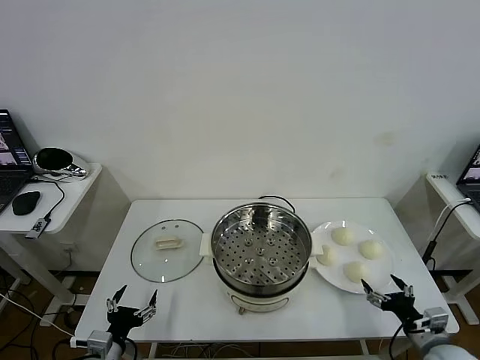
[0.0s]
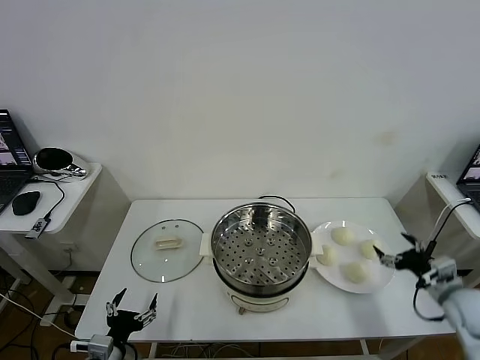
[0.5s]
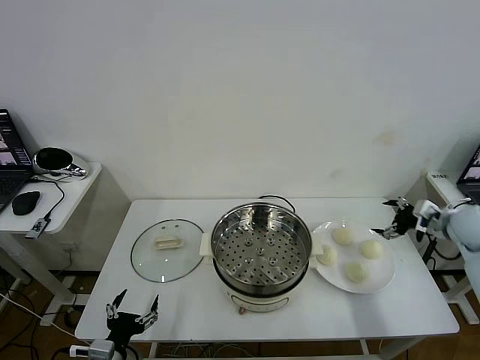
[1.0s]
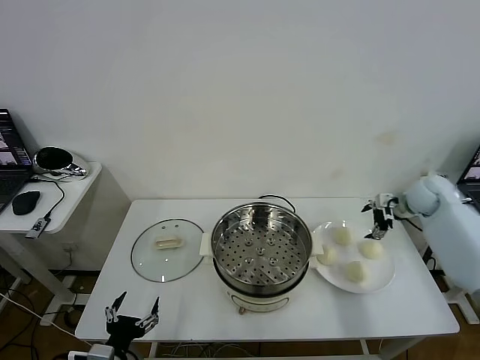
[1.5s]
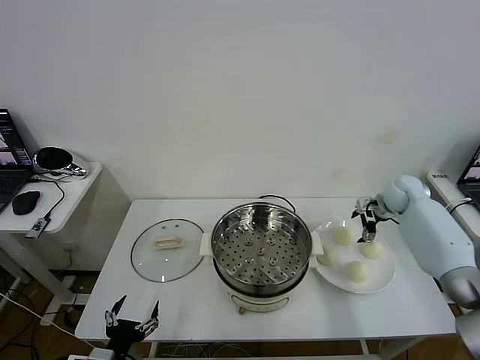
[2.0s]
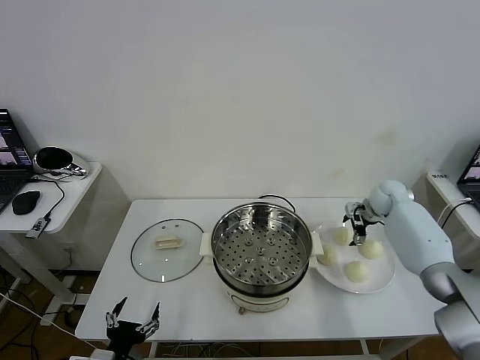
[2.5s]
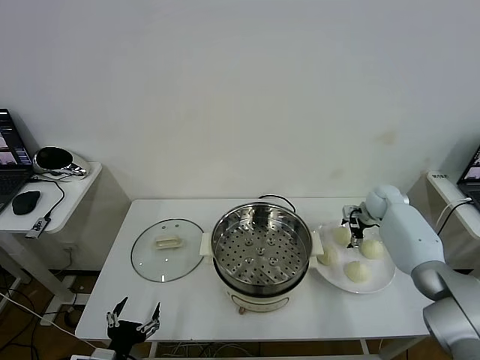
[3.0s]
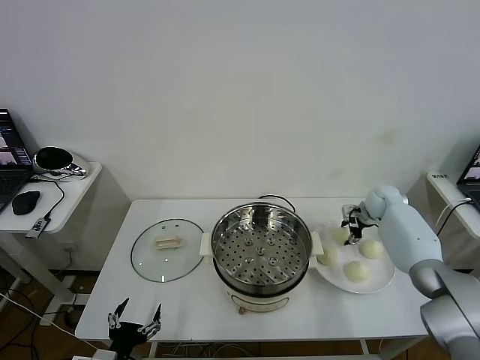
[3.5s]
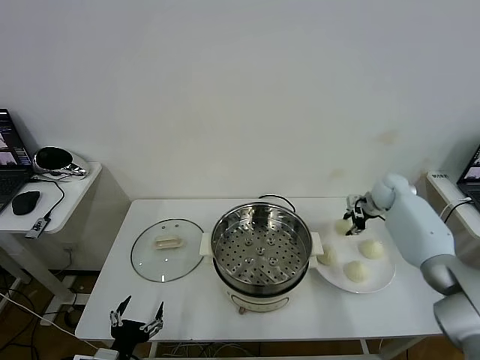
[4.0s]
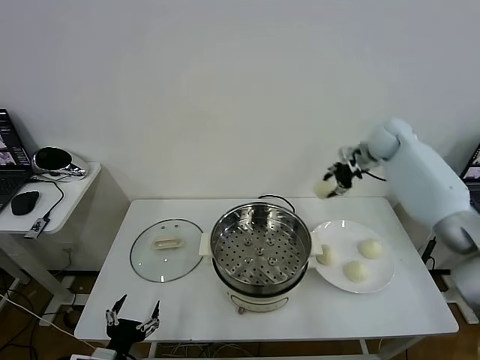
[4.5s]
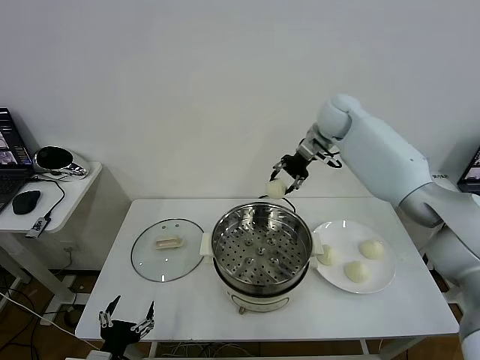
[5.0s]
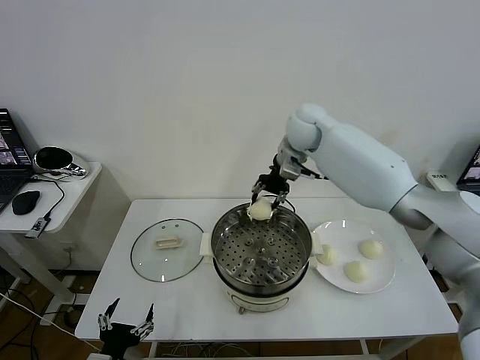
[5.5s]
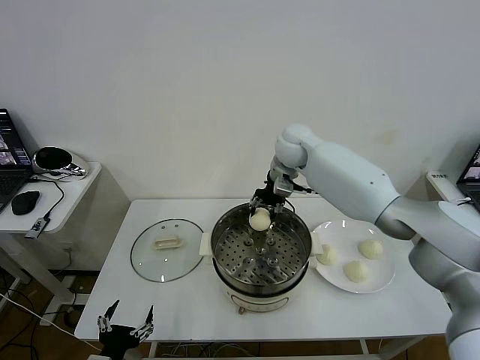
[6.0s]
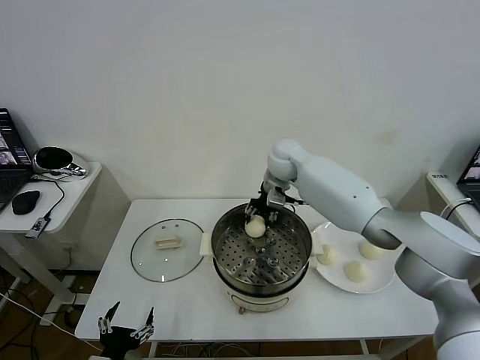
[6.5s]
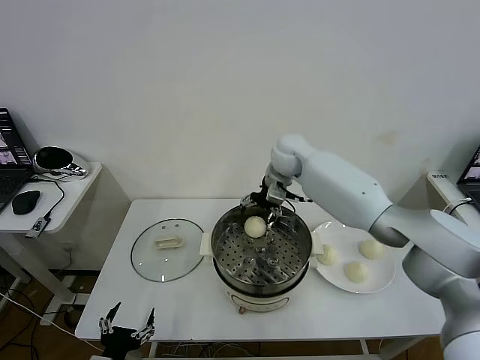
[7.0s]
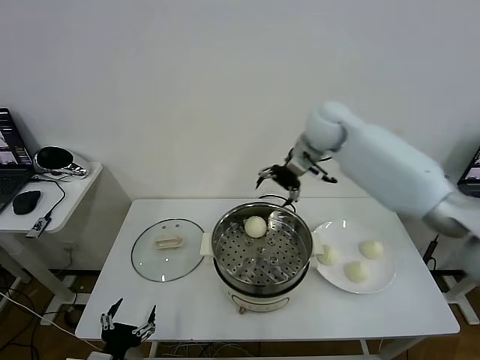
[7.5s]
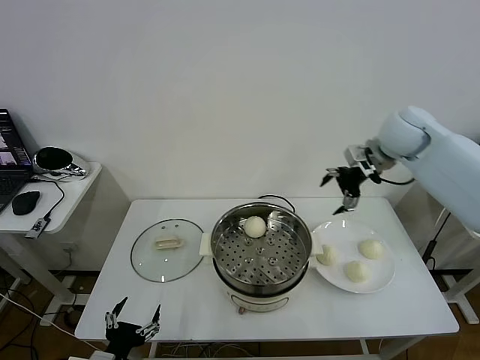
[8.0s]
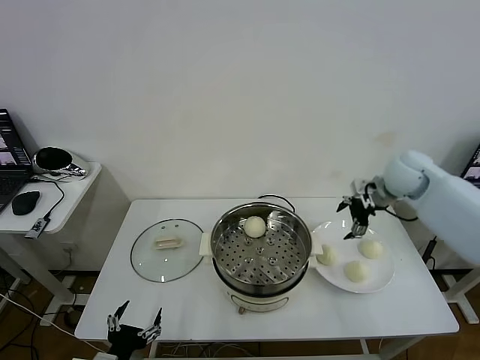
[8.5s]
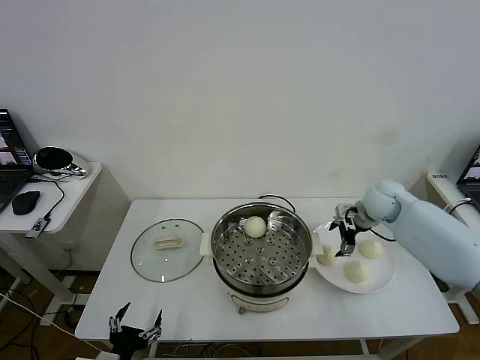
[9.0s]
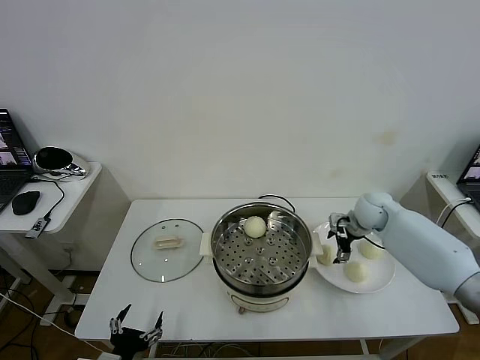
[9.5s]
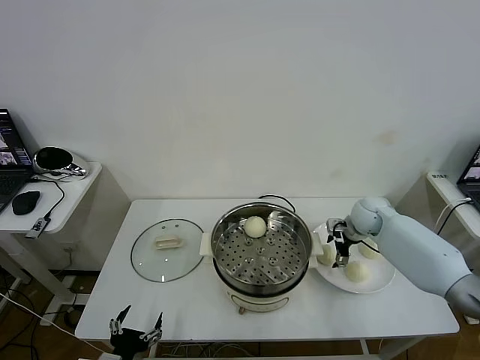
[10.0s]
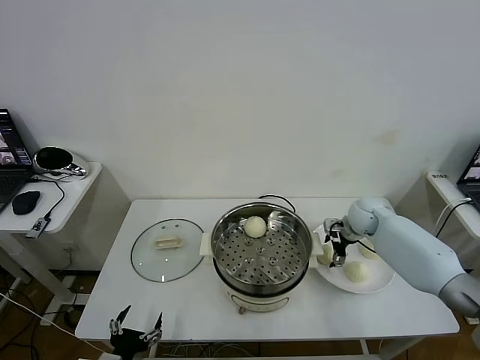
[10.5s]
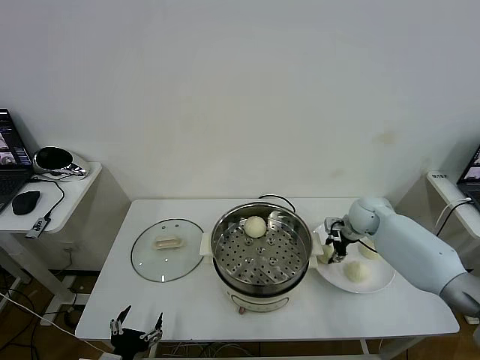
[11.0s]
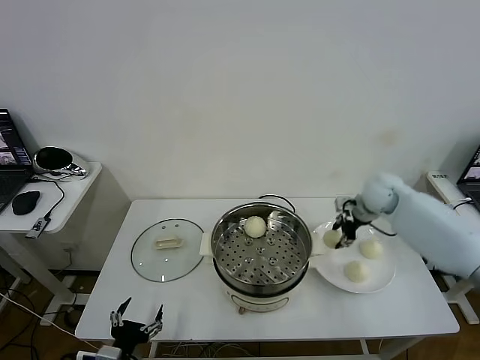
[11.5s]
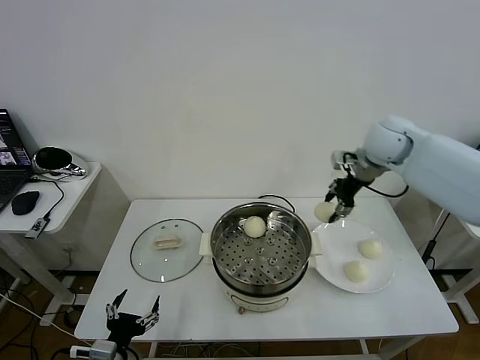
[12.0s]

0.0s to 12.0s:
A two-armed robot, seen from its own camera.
Task of the whole recording: take steamed baozi put them in steamer then cover it.
Step, 0.0s to 3.0s: Grasp the baozi in the plate with right gripper.
Step, 4.0s to 7.0s: Place the baozi on the steamer with right gripper.
Step, 7.5s to 10.5s: Grasp the baozi in the plate with right gripper.
2.0s to 4.0s: The right gripper closes its fingers.
4.0s to 6.0s: The right gripper heads to the left, covering about 30 cm.
6.0s to 8.0s: The right gripper travels to the right by about 25 cm, and opens.
8.0s to 10.0s: The right gripper is displaced downward by roughly 25 cm.
10.0s to 12.0s: The right gripper is displaced upward by about 25 cm, and closes up.

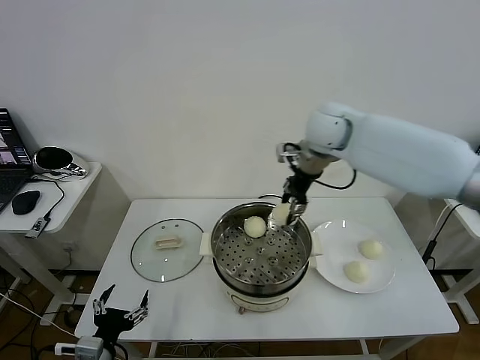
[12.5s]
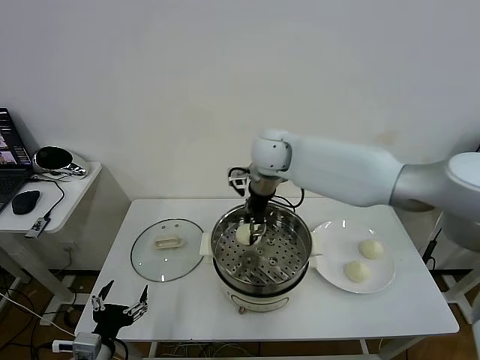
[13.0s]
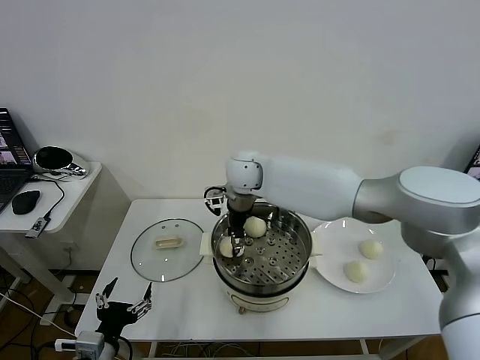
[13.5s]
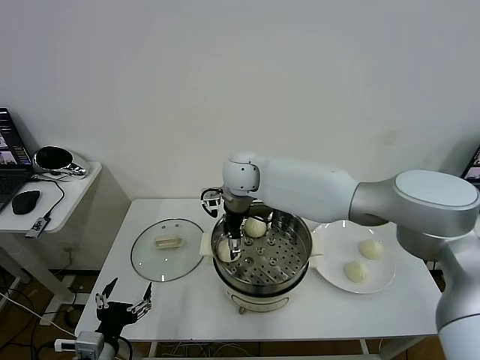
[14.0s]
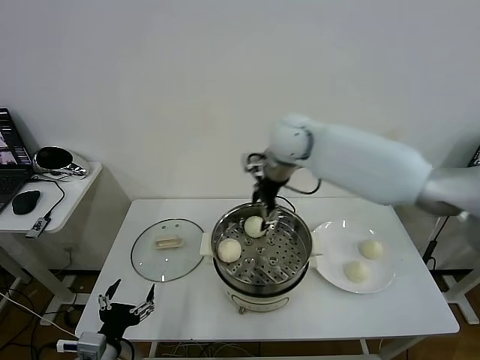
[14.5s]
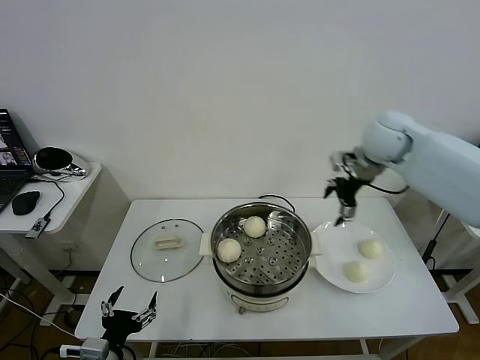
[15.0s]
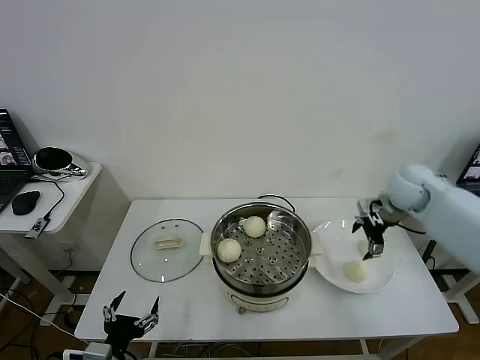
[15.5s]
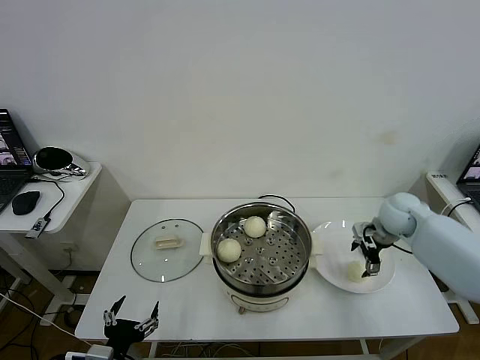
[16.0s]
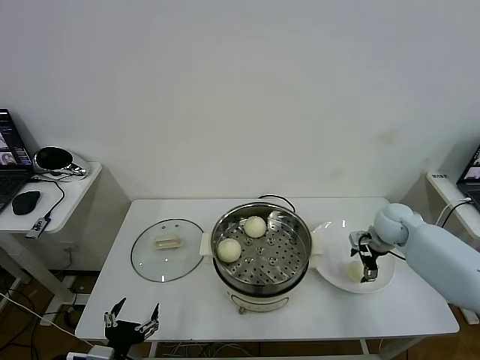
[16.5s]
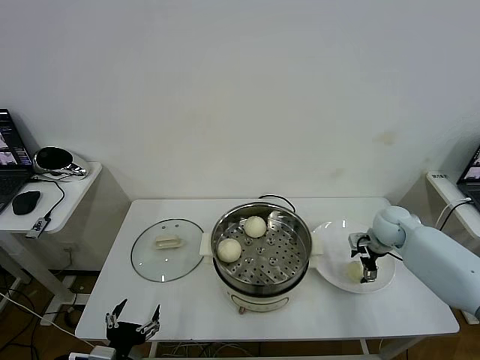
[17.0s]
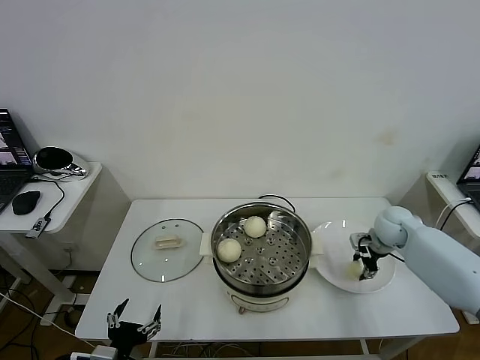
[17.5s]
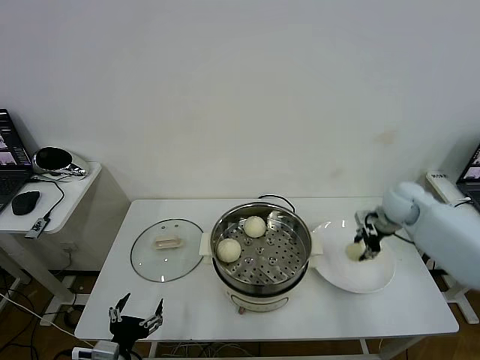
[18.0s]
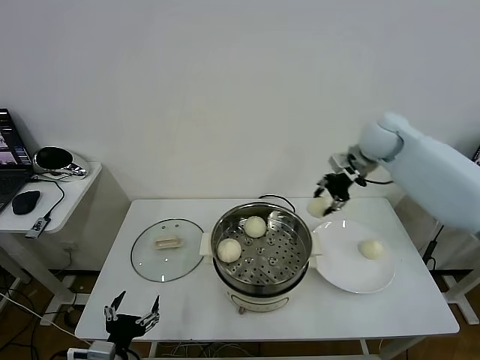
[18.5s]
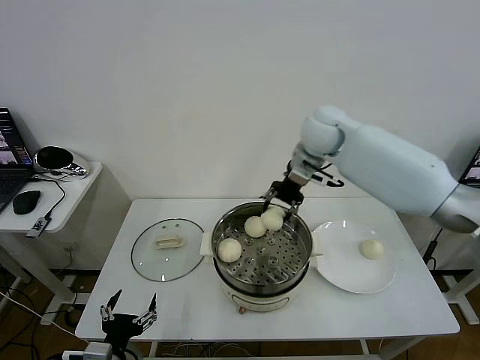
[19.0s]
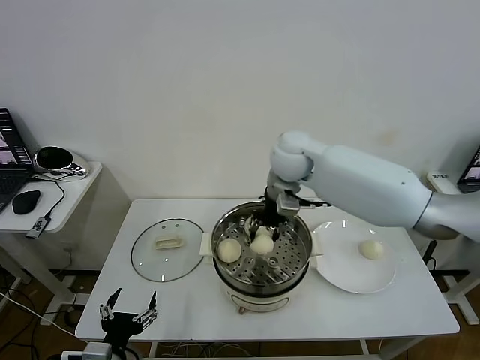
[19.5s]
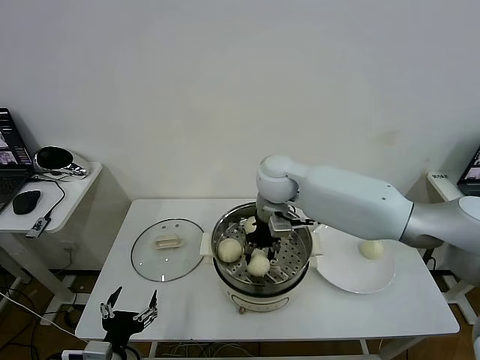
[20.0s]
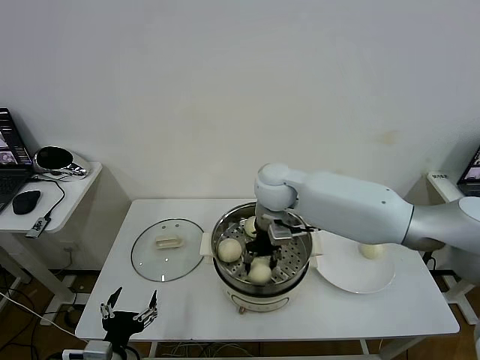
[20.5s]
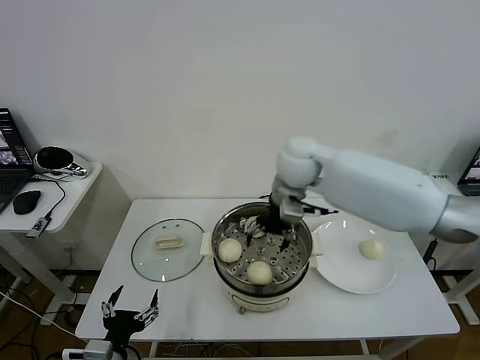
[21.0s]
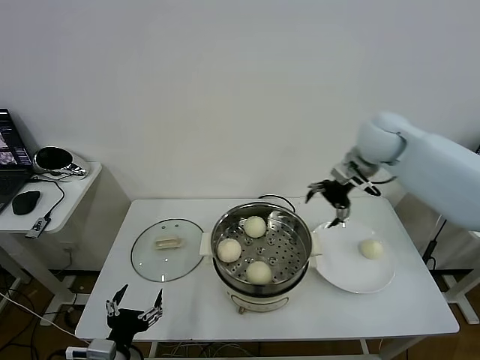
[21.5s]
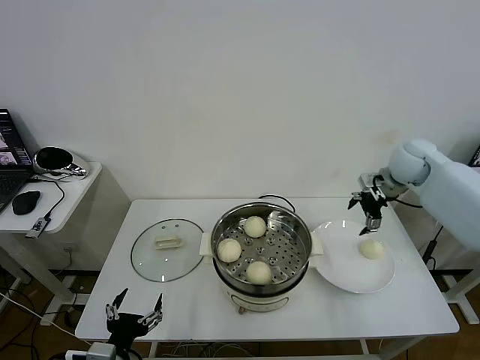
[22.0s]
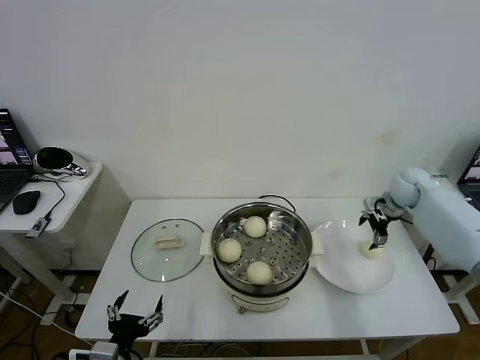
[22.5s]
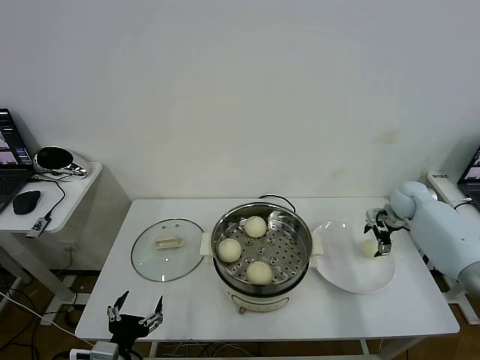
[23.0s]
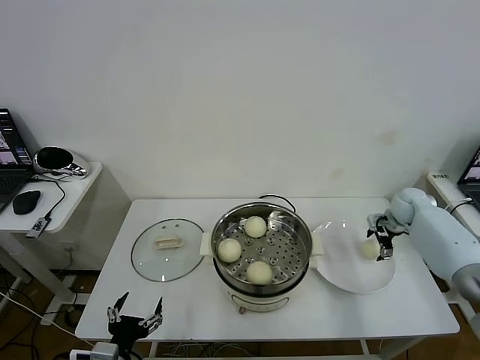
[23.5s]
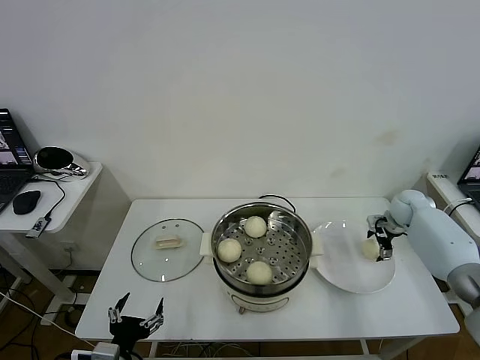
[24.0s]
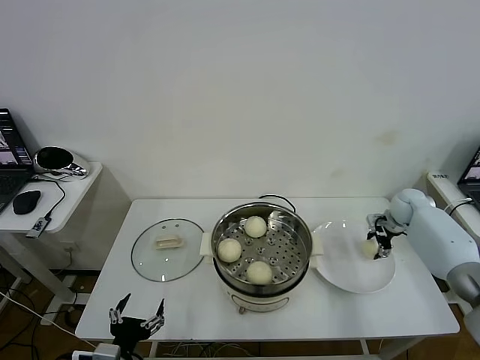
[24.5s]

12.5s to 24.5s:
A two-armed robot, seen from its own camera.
Task of the whole recording: take steamed baozi put them in steamer then cover it.
Step, 12.5s to 14.0s: Place the baozi on the steamer with right gripper.
Step, 14.5s to 17.5s: Grasp the baozi in the plate with right gripper.
Step, 18.0s to 21.0s: Place the baozi on the steamer with right gripper.
12.5s to 14.5s: The right gripper goes to the left and returns, roughly 15 cm each way, and opens.
14.5s to 16.5s: The right gripper travels to the right and downward by some 35 cm.
16.5s to 18.5s: The right gripper moves upward and to the left, about 25 cm, and closes up.
18.5s to 20.5s: The right gripper heads to the left and downward, covering about 20 cm, and opens up.
20.5s to 22.5s: The right gripper moves to the right, approximately 35 cm, and opens its fingers.
22.5s to 24.5s: The right gripper shifts some 5 cm downward, and closes up.

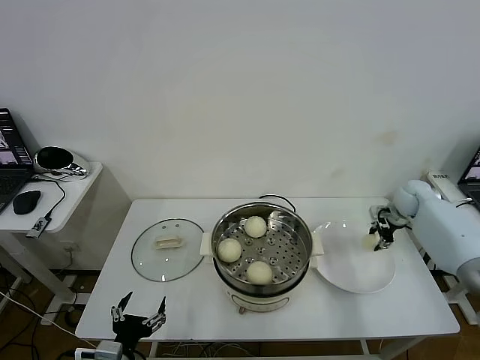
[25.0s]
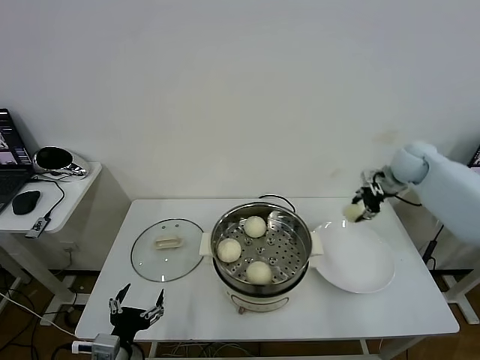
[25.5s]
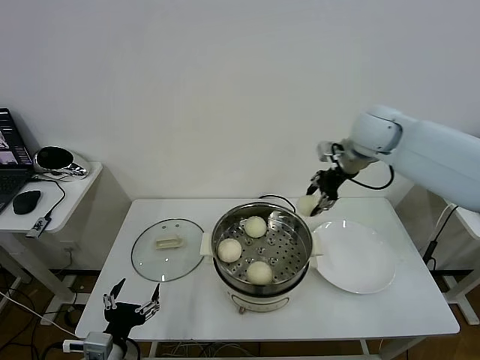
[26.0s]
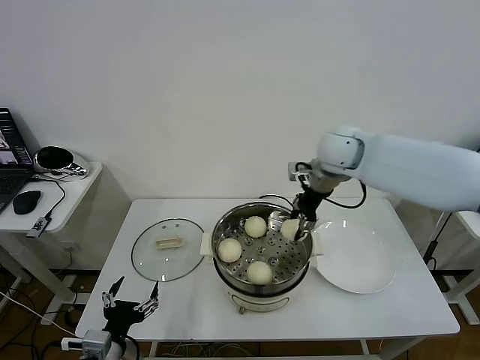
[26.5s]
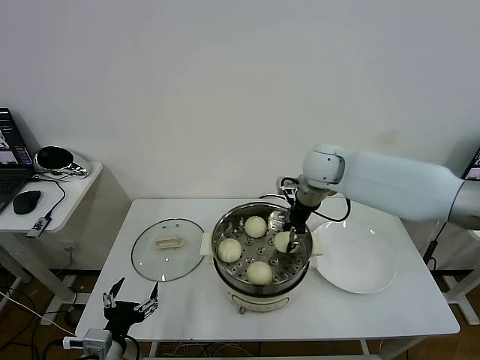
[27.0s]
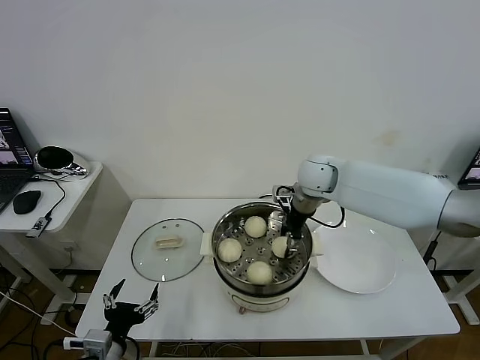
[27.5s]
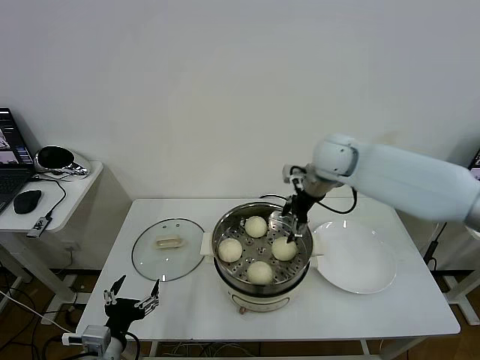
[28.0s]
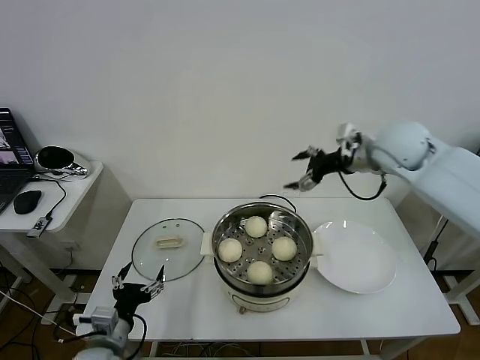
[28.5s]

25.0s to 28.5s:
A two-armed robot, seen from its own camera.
Task of the whole recording: take steamed baozi put them in steamer then cover it.
Step, 25.0s to 28.0s: Place the baozi on the steamer with right gripper.
25.0s to 27.0s: The right gripper heads to the left and upward, covering approximately 30 cm.
27.0s to 28.5s: The right gripper travels to the right and upward by approximately 15 cm, and opens up.
